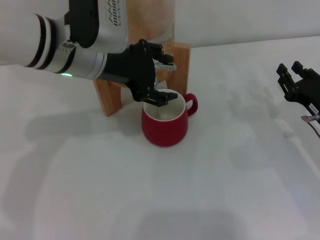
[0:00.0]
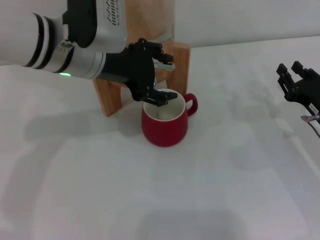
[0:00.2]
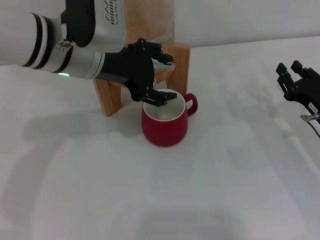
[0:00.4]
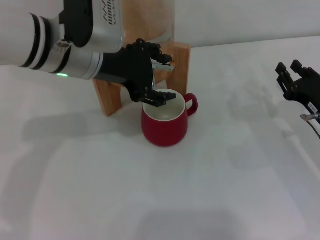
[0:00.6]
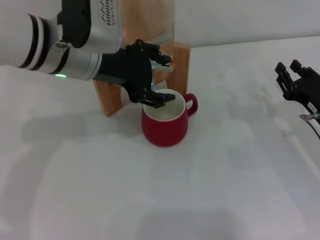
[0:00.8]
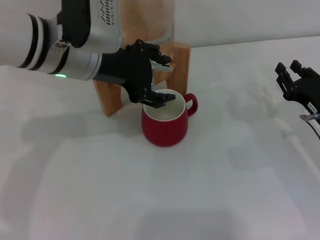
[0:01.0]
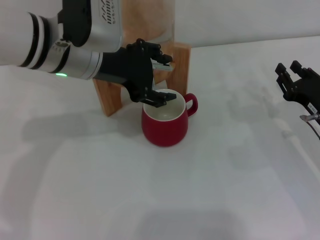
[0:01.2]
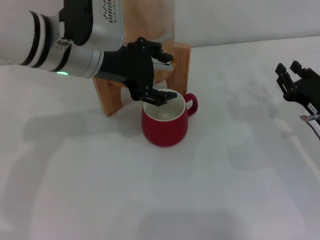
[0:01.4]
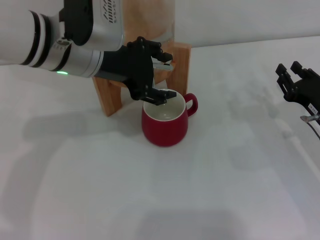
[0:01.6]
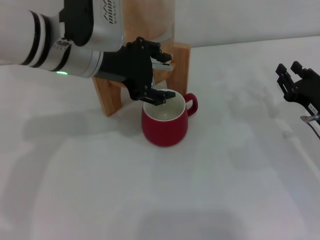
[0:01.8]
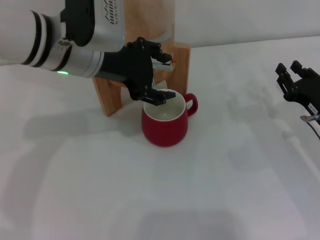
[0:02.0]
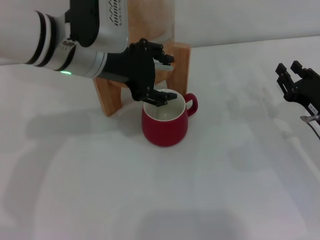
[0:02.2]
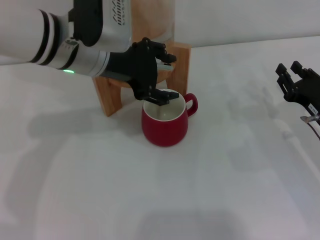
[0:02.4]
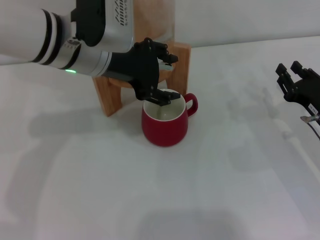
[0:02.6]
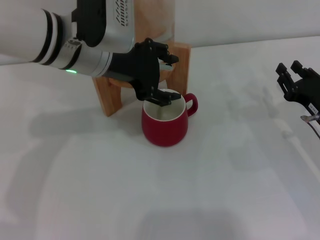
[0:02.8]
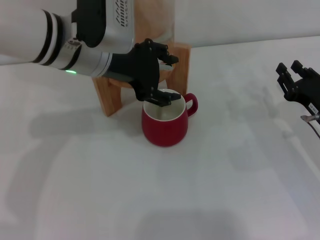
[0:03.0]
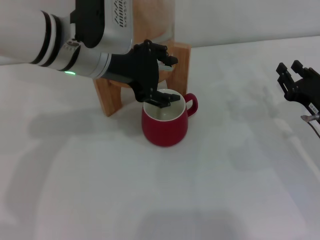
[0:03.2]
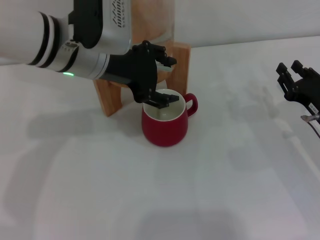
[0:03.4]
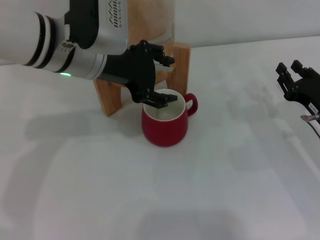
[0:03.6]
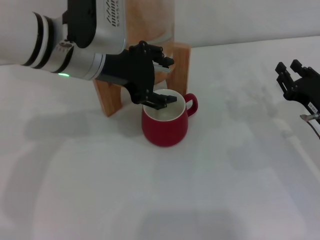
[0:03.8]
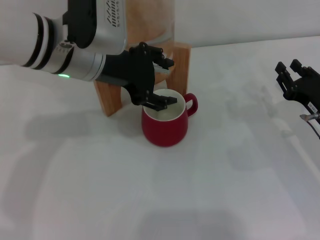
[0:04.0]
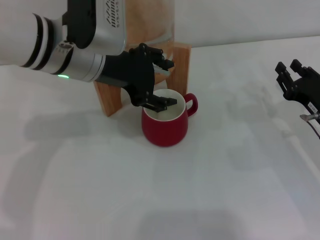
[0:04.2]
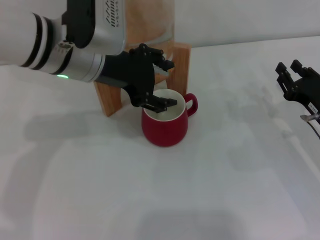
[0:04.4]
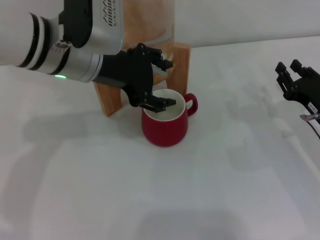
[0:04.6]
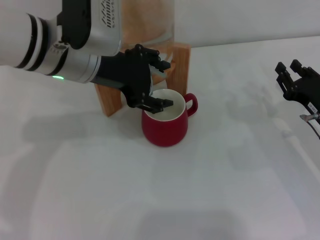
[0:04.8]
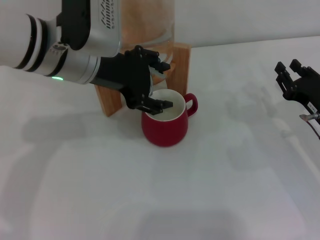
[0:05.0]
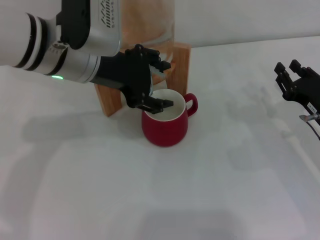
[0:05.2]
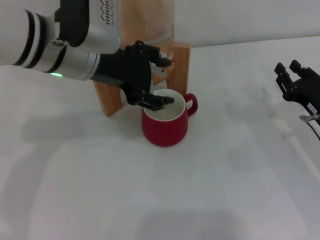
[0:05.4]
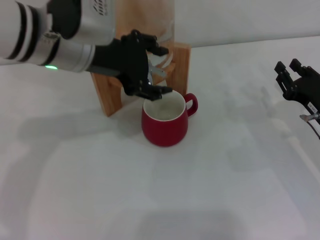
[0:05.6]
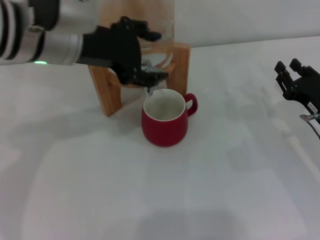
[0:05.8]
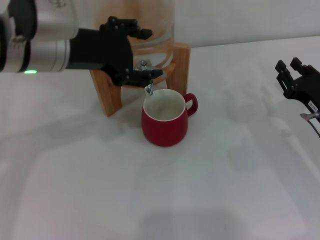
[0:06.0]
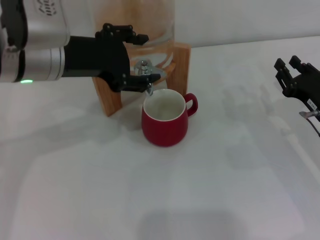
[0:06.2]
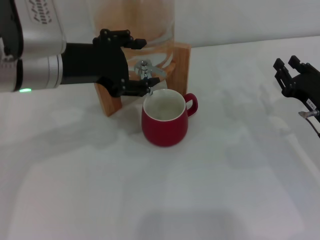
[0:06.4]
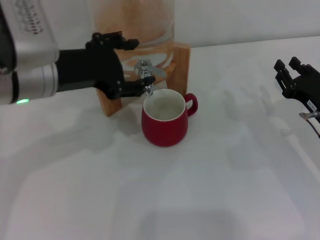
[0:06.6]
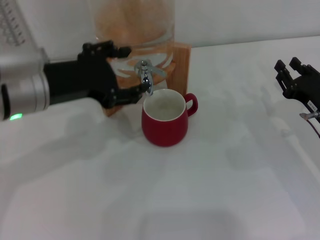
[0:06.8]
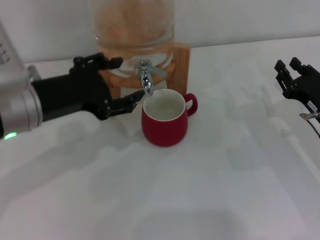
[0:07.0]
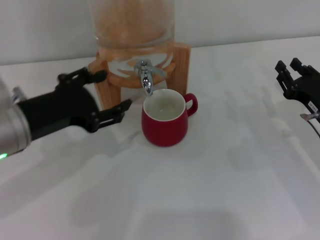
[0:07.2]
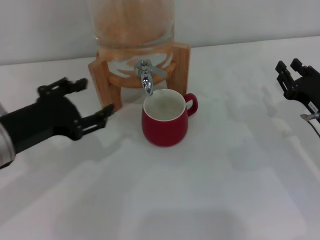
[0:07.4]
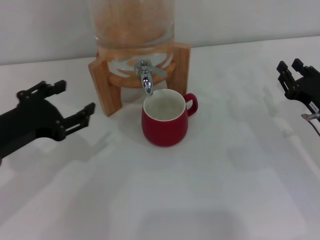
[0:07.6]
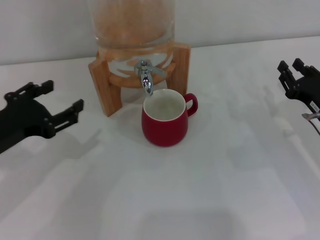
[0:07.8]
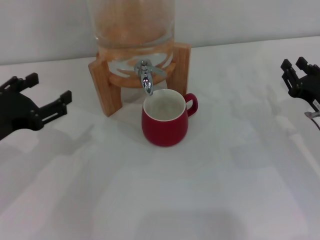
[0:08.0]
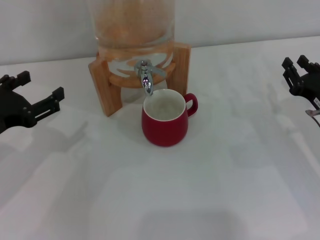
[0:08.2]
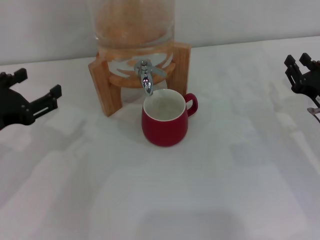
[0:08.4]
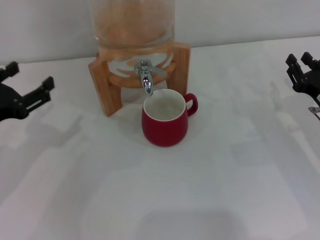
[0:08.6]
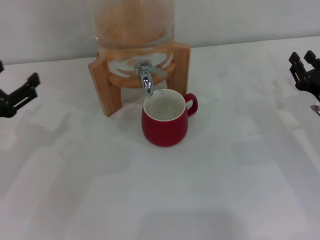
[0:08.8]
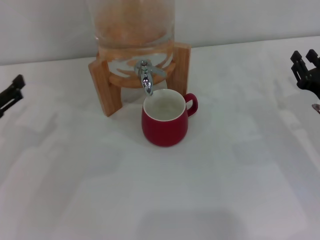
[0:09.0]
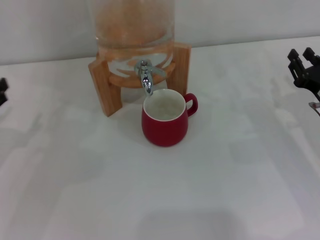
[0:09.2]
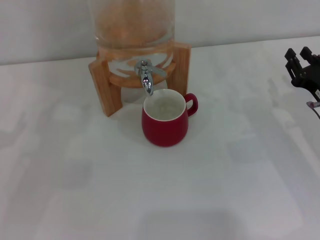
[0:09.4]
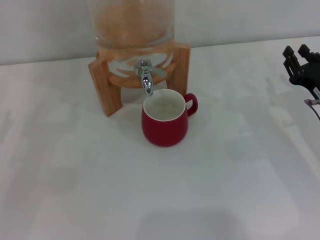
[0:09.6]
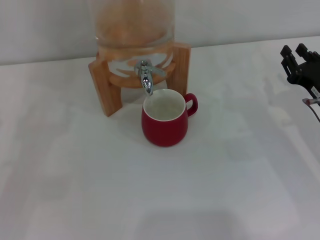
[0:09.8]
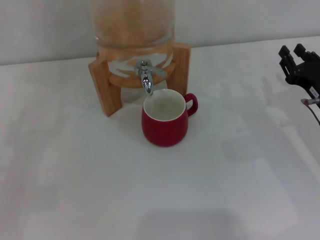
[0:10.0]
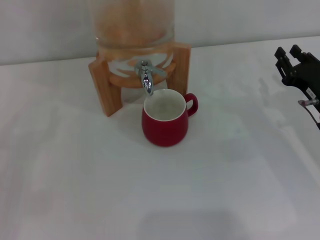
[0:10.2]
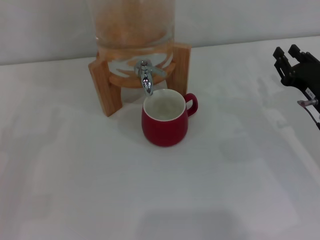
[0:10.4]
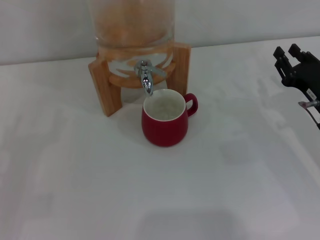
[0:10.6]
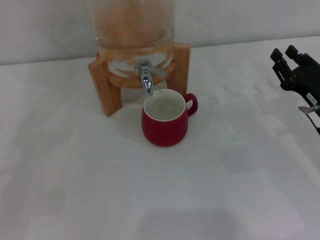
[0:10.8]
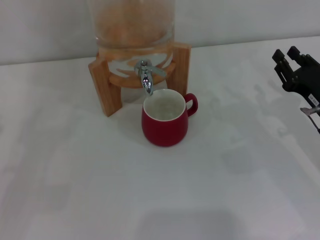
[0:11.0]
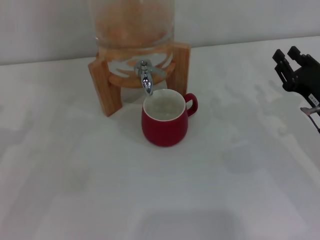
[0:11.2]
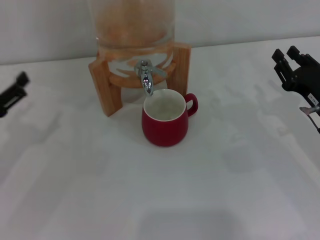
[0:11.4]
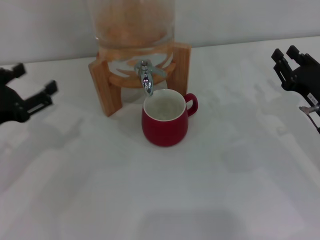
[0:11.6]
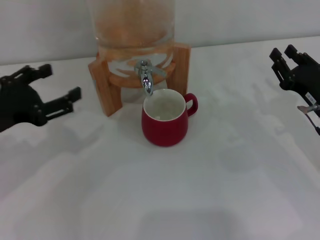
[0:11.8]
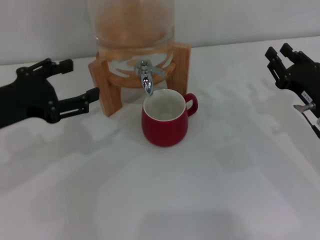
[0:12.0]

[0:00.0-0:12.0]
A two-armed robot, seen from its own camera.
Task of the whole recording: the right gripper pick up the red cup and place it horizontally under the faucet, the left gripper turn on the faucet to fill the cup, and then turn off the faucet.
0:00.0 to 0:04.4: The two grippers keep their place.
0:04.4 to 0:06.0: There are only small adjustments of the grippers.
0:06.0 to 0:07.6: The left gripper travels to the left, downward and backward by about 15 cm.
0:07.6 to 0:09.0: The left gripper travels to the left by roughly 5 cm.
0:09.0 to 0:10.4: The left gripper shifts some 5 cm to the left.
0:10.4 to 0:12.0: The left gripper shifts some 15 cm to the right, upward and forward.

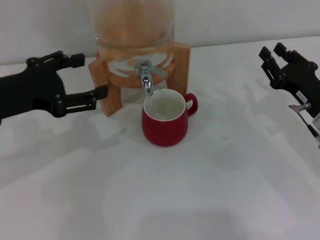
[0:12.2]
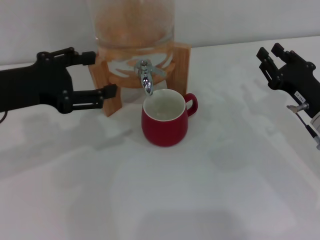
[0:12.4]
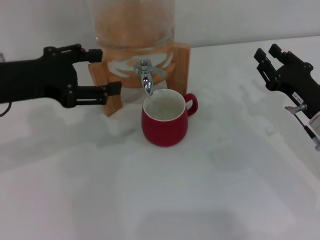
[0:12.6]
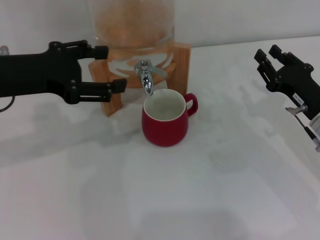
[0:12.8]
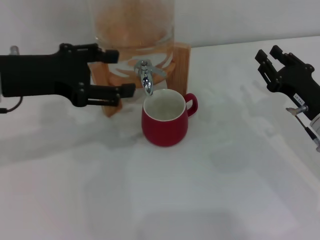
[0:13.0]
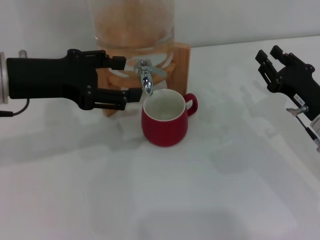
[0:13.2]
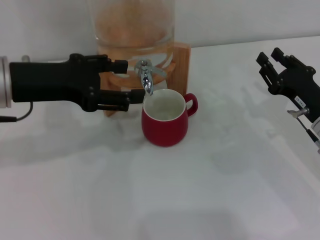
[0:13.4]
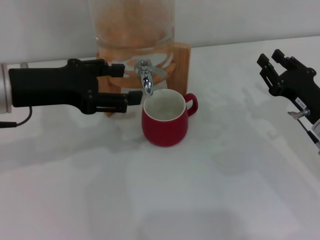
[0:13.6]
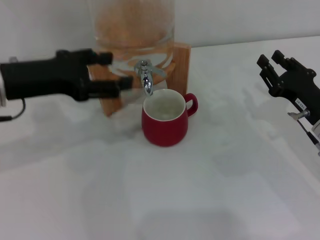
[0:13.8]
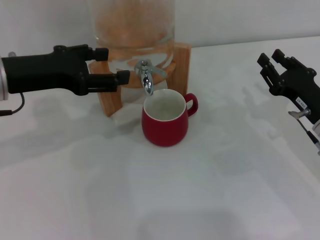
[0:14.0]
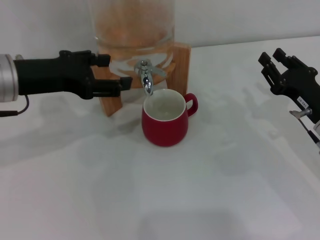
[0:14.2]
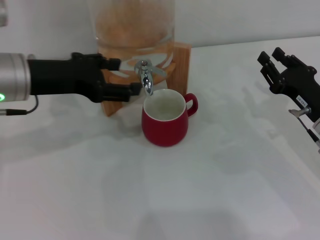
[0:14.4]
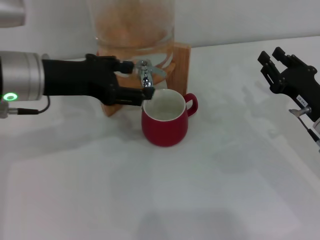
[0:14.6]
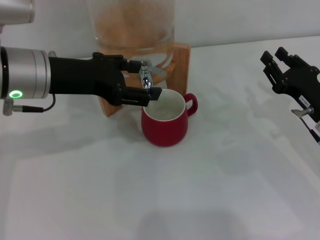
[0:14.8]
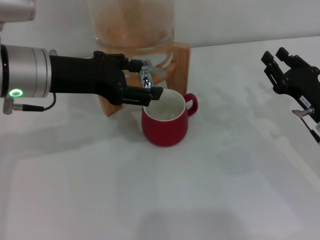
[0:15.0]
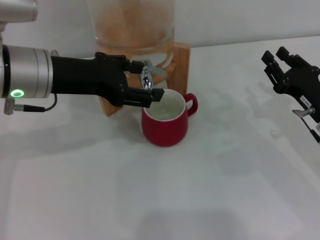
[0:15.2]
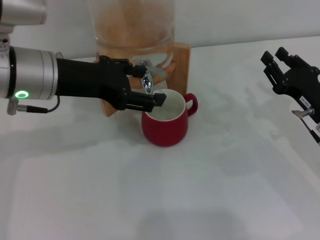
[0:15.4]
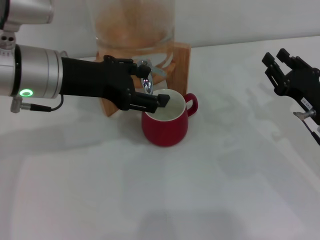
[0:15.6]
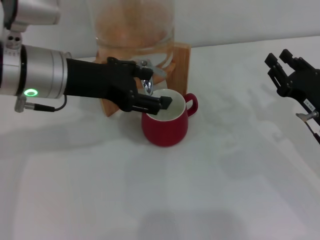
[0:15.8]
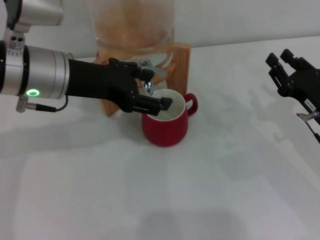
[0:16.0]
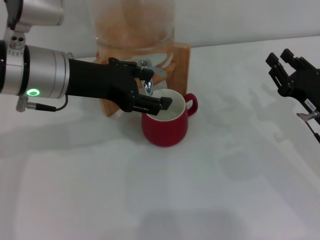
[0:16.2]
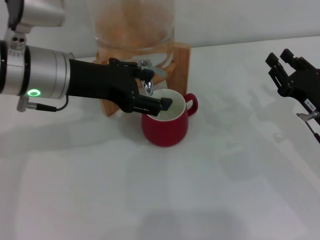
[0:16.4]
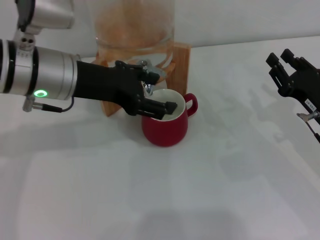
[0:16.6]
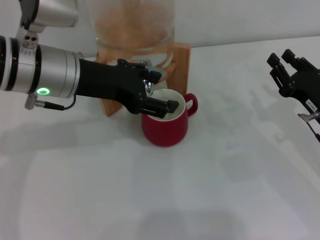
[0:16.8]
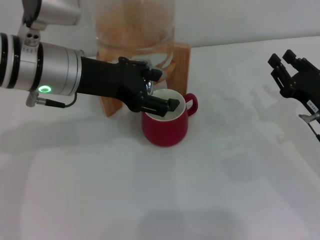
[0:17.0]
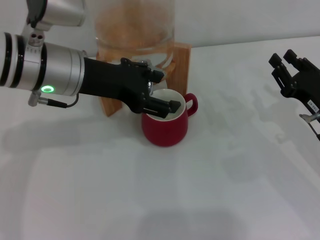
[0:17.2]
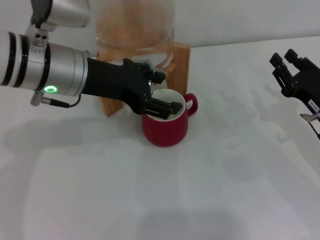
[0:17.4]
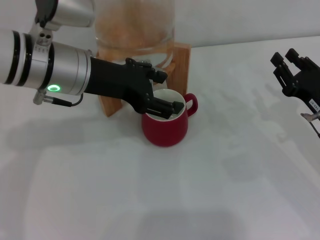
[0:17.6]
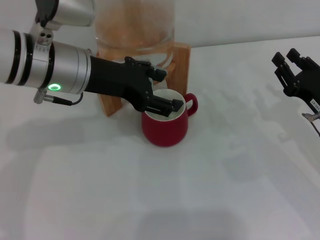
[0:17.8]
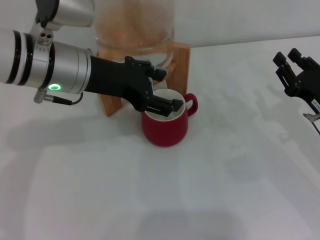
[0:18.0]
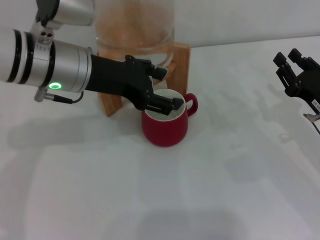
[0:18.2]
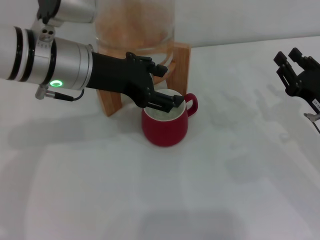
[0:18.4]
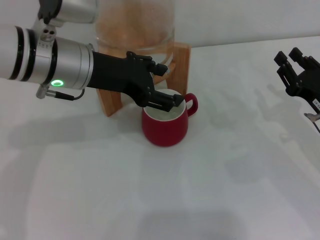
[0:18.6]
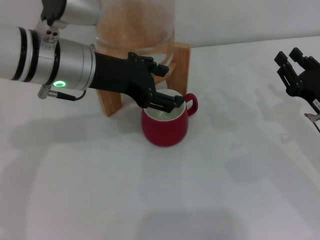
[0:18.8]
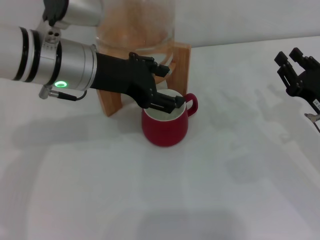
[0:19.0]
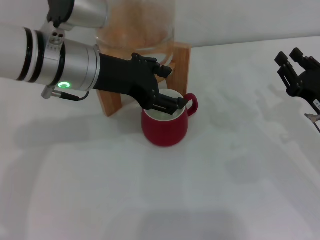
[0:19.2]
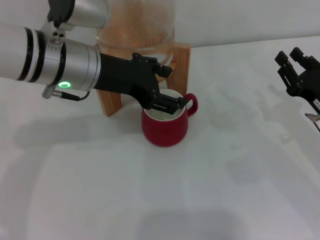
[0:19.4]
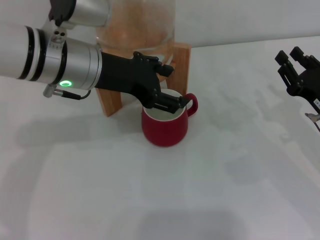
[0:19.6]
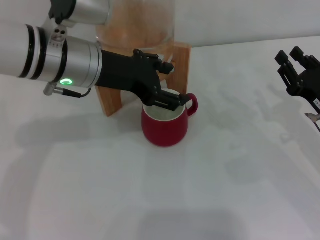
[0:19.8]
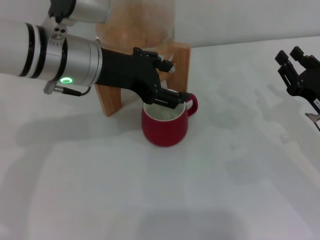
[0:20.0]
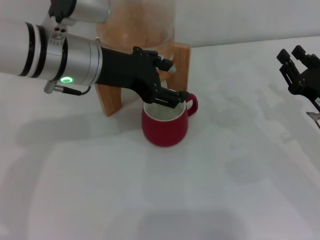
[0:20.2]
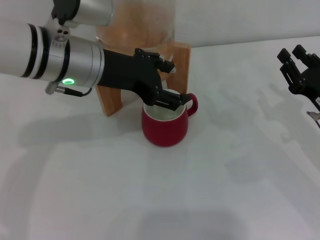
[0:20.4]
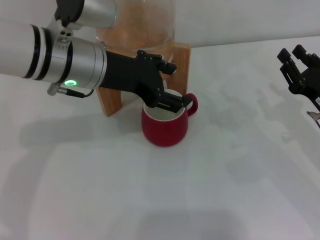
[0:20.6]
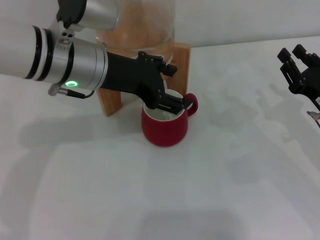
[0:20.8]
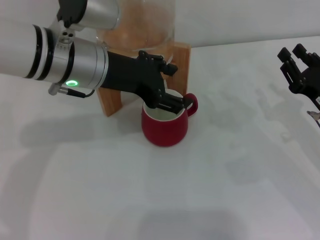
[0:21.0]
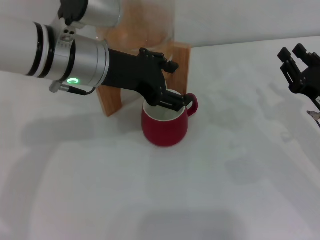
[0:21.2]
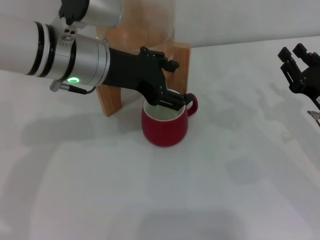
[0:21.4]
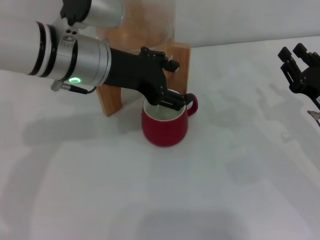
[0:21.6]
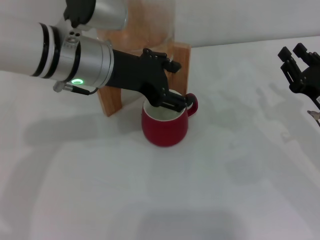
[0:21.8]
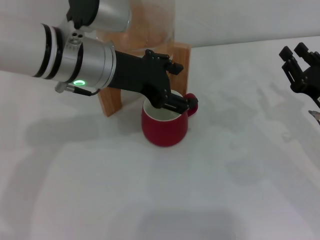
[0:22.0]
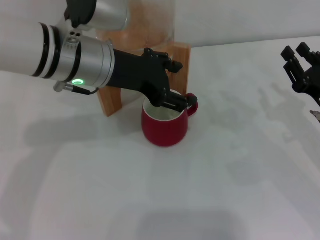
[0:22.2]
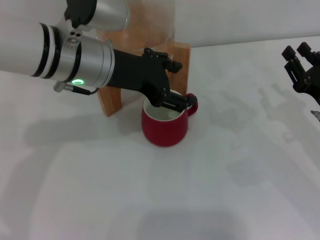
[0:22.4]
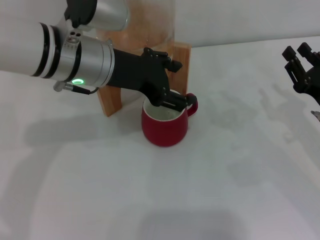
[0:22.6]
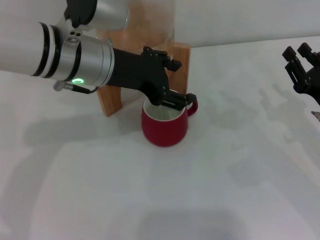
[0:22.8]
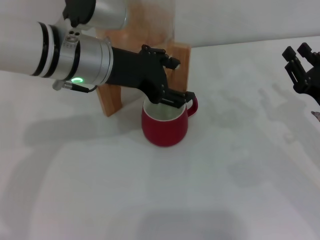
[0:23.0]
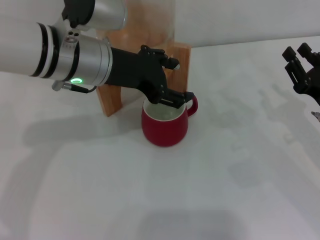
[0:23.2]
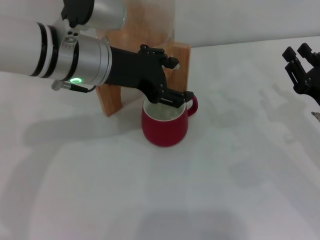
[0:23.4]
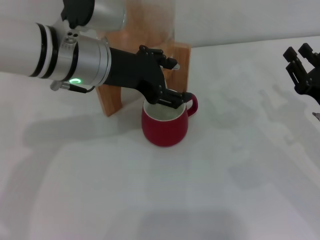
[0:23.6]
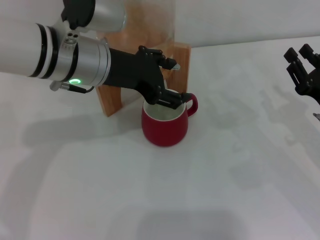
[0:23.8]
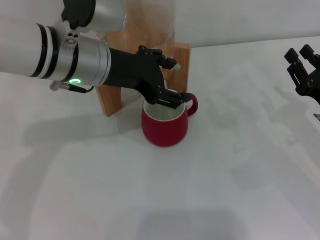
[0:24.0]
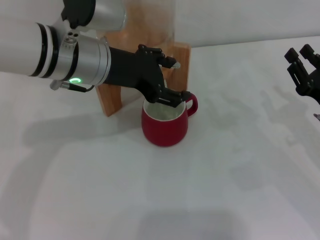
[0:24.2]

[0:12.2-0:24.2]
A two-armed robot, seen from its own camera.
Task of the whole recording: the right gripper pick up the red cup and place it horizontally under the faucet, the left gripper turn on the faucet to fill the cup, and then turn off the faucet.
Step, 0:12.2 to 0:16.2: Open the dispenser valve and fill the cup with water with the left gripper.
0:12.2 to 0:13.8: There are only small adjustments of the grippers.
0:13.8 to 0:15.2: The left gripper moves to the right, approximately 5 cm.
0:15.2 to 0:18.2: There are only small adjustments of the grippers.
0:18.2 to 0:19.8: The two grippers keep their place.
0:19.8 to 0:21.2: Both grippers stay put.
0:21.2 to 0:24.2: Neither gripper changes place.
